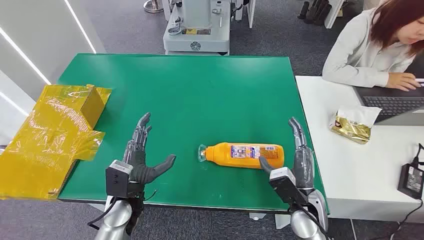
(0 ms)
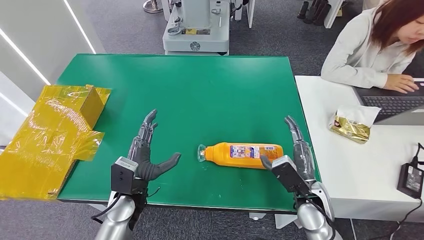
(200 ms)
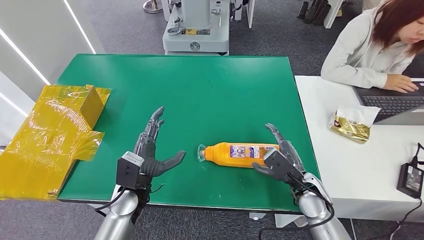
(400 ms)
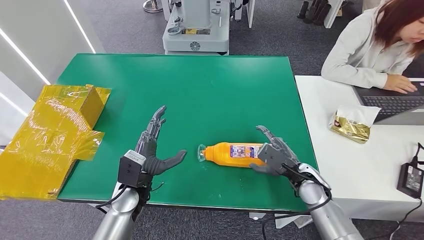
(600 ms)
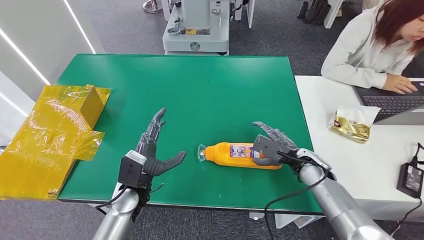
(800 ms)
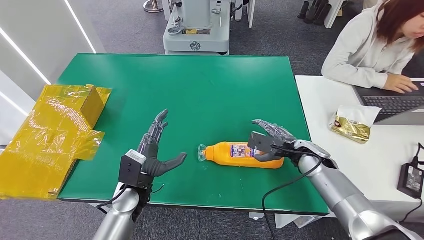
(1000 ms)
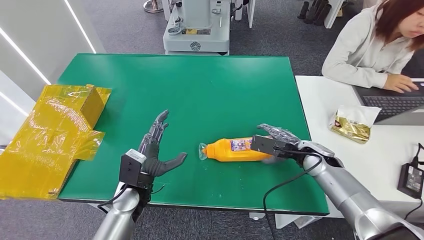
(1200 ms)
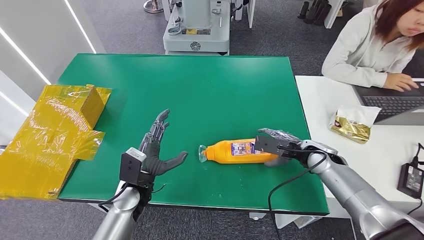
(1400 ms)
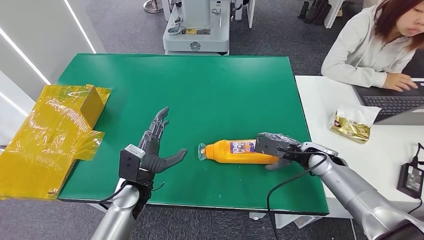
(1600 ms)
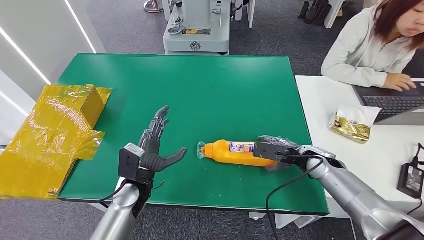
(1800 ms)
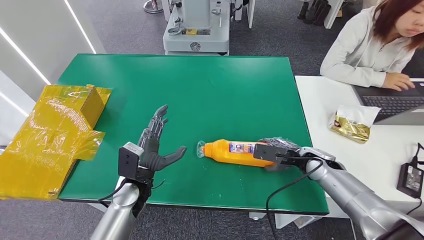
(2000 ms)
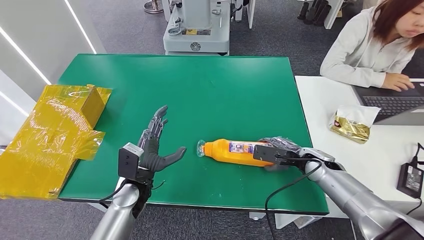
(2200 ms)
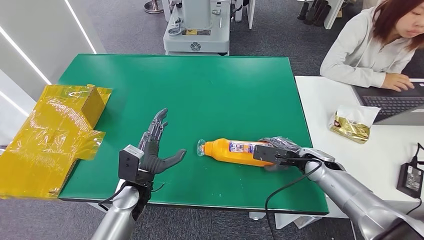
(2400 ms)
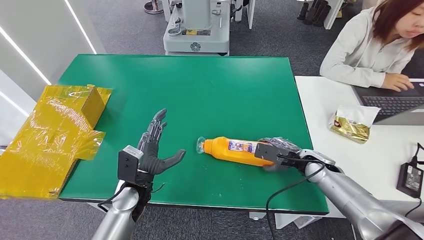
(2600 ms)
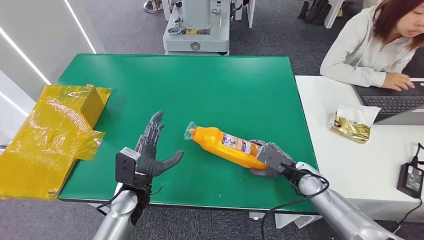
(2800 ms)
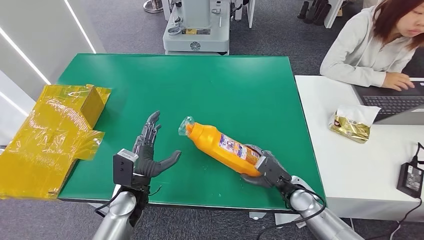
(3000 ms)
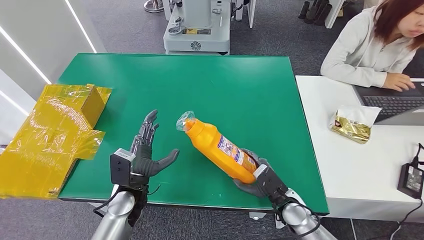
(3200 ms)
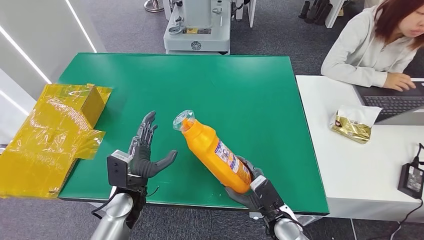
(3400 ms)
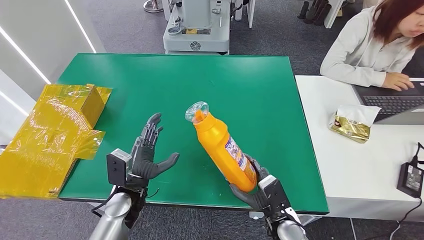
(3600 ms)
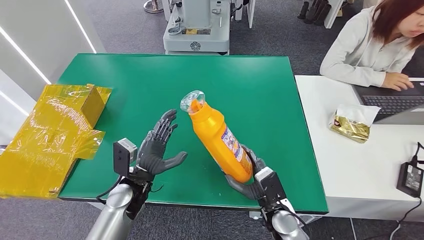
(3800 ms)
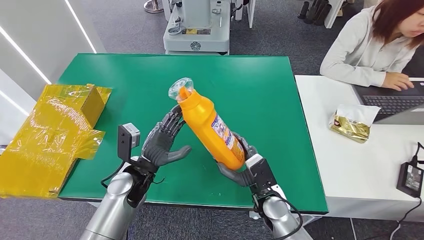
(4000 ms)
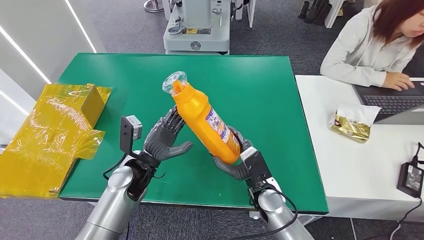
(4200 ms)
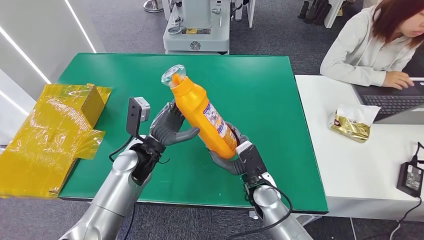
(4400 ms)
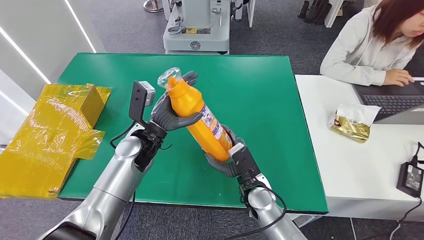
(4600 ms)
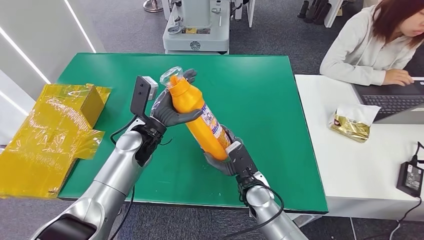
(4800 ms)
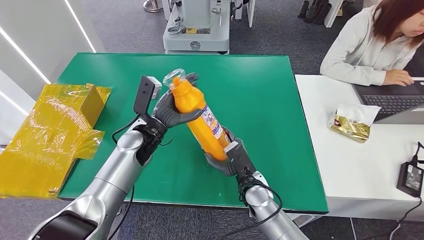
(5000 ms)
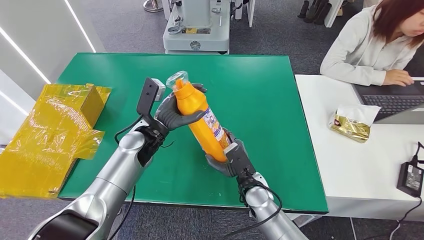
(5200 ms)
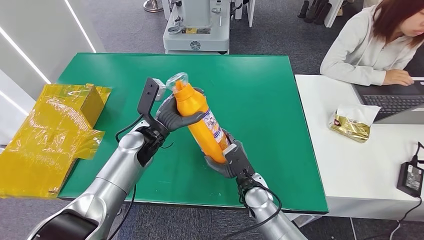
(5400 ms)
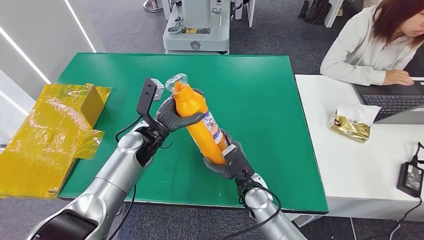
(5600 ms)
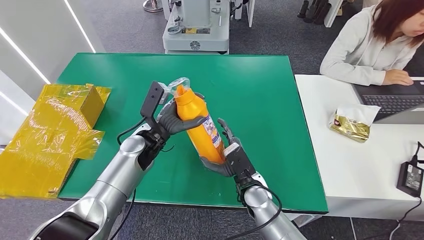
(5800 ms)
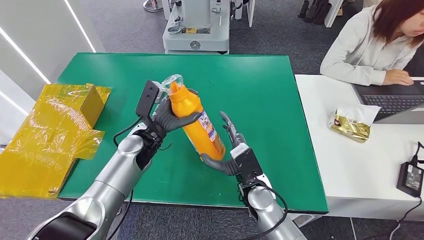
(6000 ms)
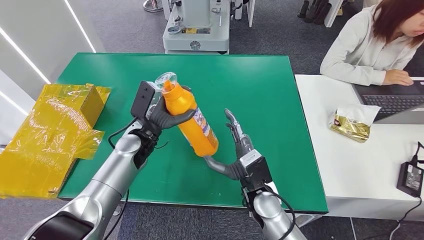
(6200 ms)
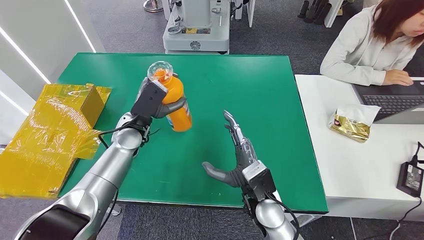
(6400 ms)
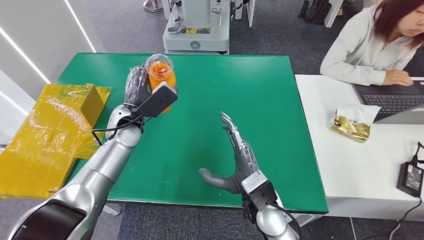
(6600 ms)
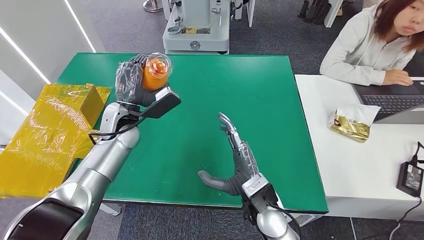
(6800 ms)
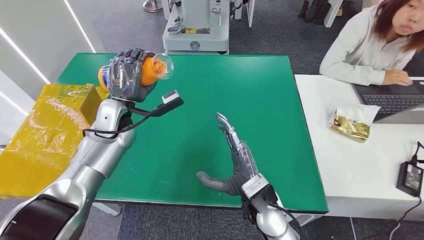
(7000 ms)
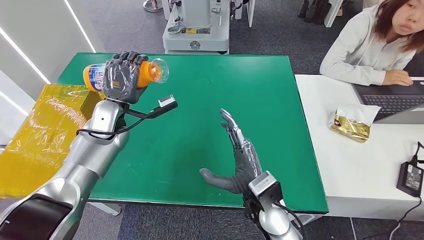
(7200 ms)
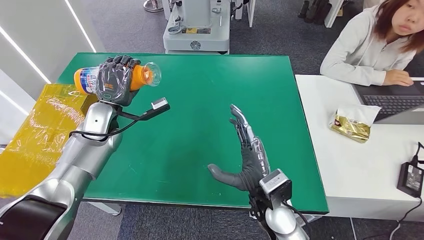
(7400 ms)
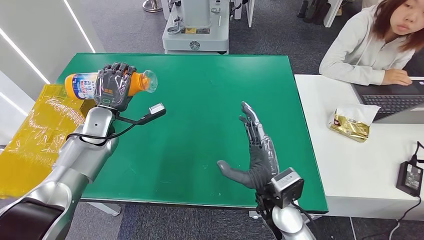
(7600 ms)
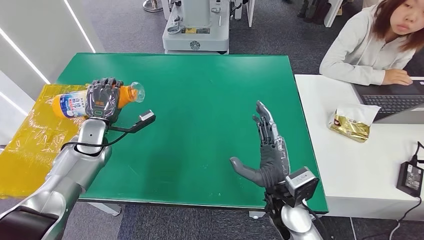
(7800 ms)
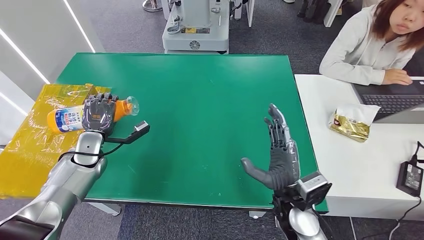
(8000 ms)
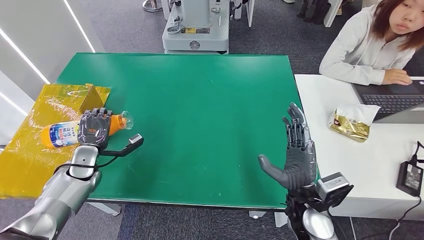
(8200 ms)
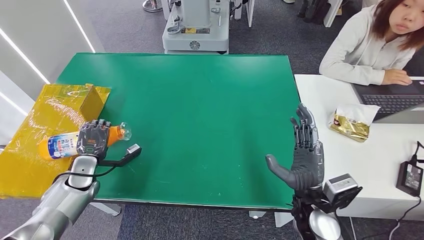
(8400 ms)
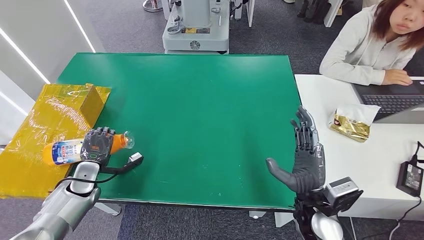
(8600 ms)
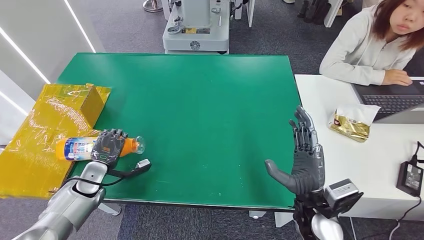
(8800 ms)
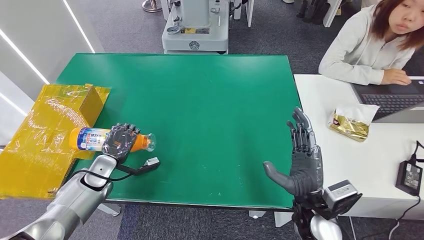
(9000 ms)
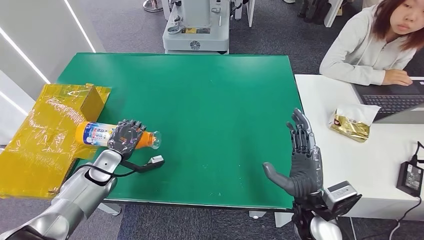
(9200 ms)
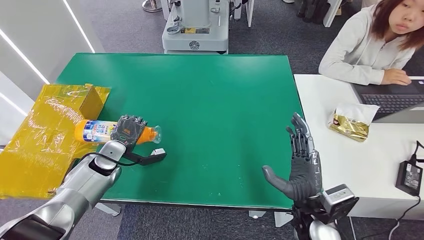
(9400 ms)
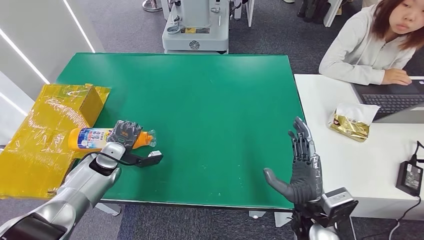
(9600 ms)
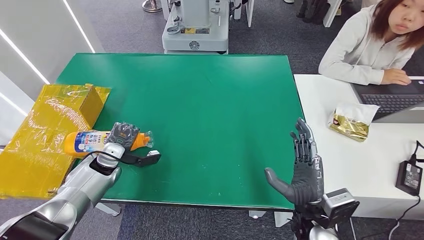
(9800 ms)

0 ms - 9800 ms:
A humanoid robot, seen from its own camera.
Step, 0 ms - 5000 ms: Pick up the bottle from the table.
1400 ms - 2800 ms: The right hand is displaced downward by some 5 cm.
2800 ms - 4200 ms: The right hand heads to the left, covering some 15 cm. The left hand moves some 5 cm.
4200 ms - 5600 ms: The left hand moves forward, some 5 cm.
8400 ms - 9800 ms: The left hand moves to the right, some 5 cm.

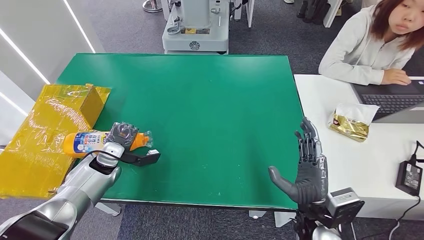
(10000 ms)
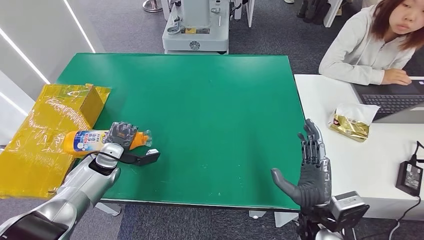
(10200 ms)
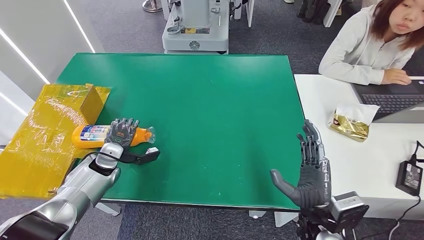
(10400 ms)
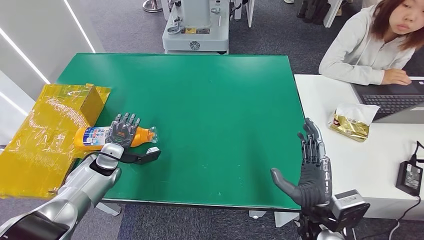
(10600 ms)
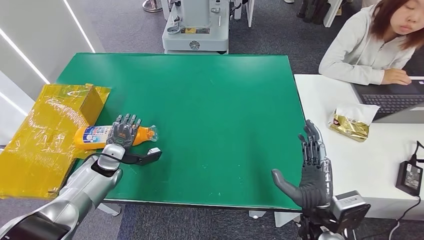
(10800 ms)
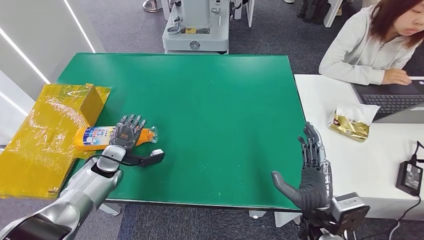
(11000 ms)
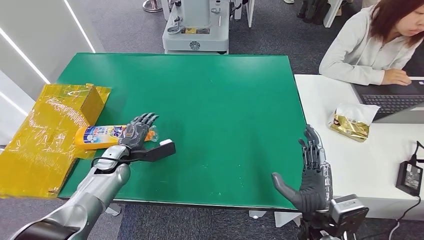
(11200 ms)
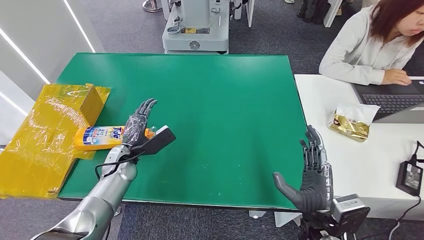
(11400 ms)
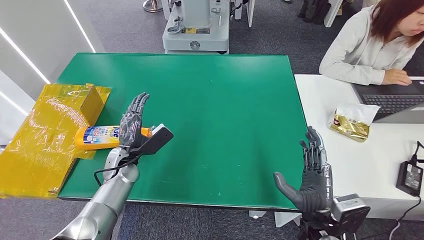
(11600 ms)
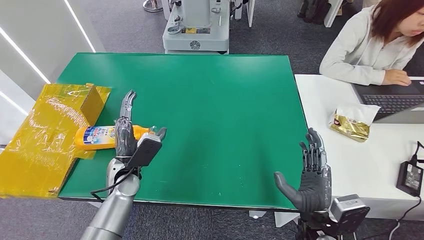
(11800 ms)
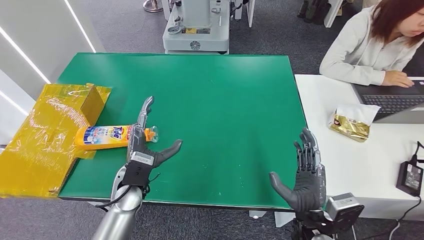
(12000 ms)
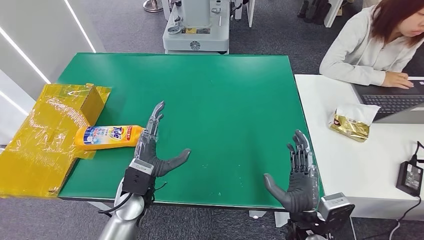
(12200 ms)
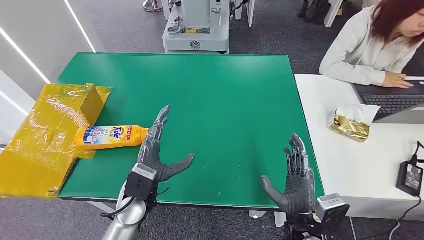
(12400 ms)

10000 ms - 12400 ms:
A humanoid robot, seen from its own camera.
Step, 10000 ms - 12200 ms: Turn the bottle to the front side.
11200 ms - 12400 ms: The left hand moves to the right and backward, about 15 cm.
